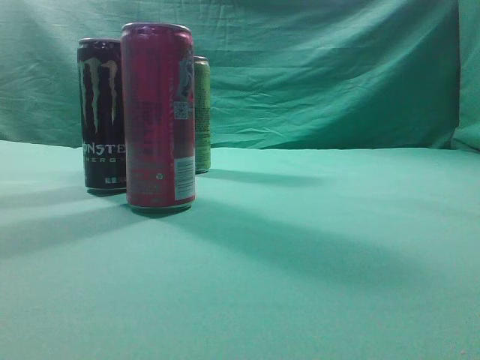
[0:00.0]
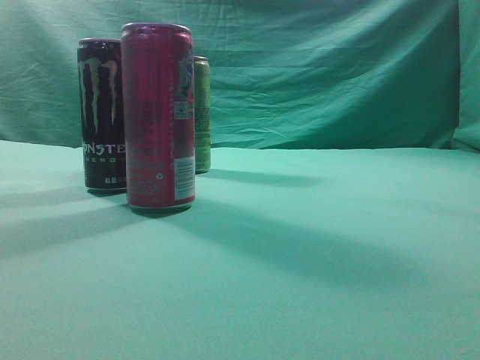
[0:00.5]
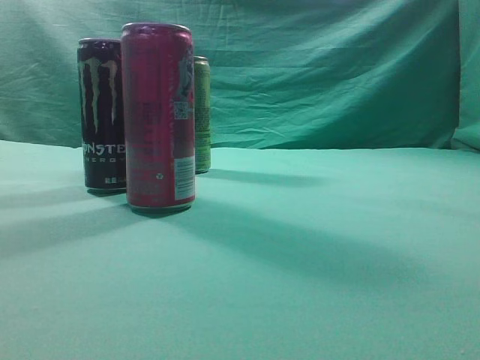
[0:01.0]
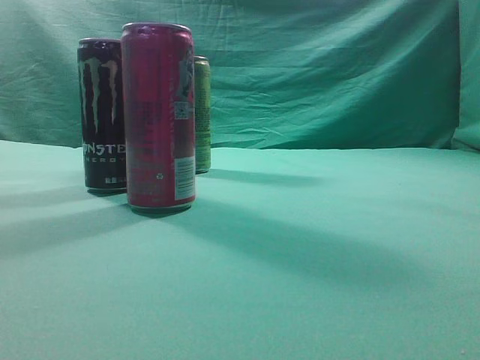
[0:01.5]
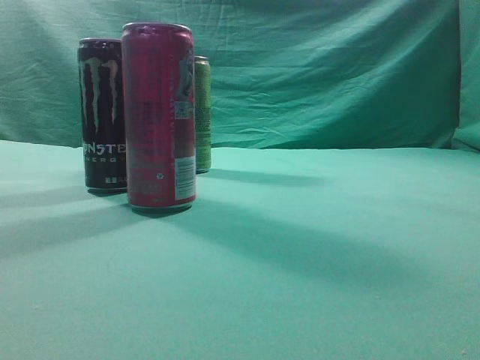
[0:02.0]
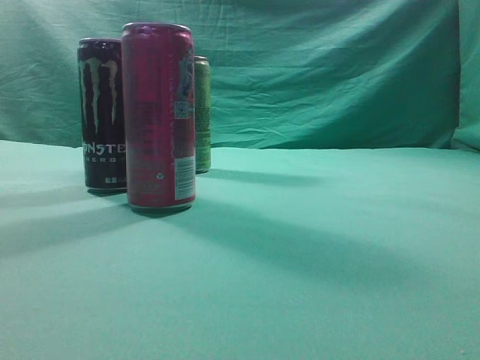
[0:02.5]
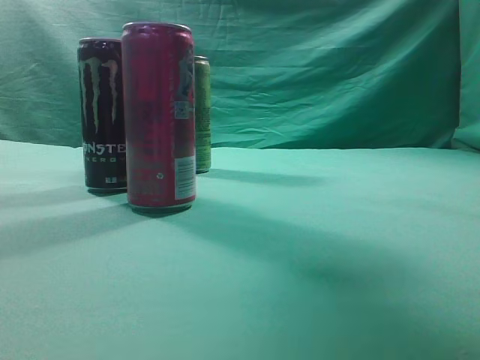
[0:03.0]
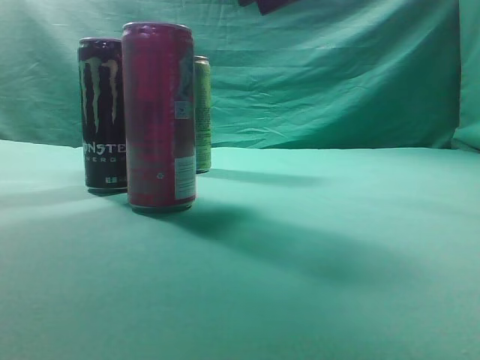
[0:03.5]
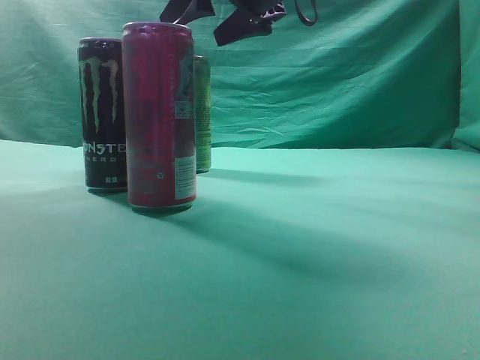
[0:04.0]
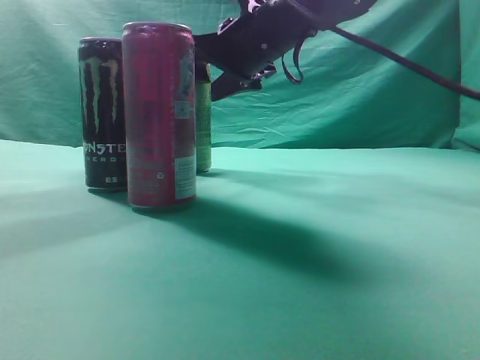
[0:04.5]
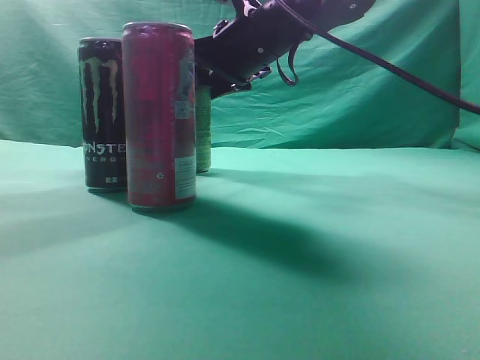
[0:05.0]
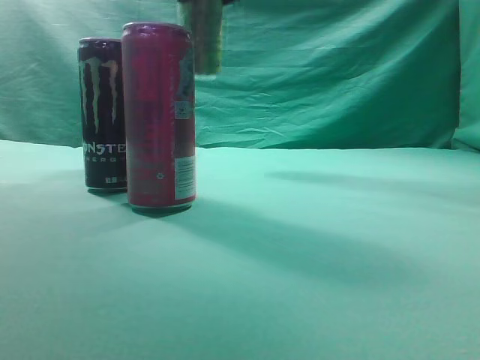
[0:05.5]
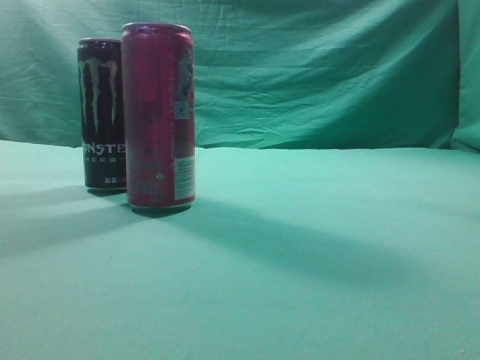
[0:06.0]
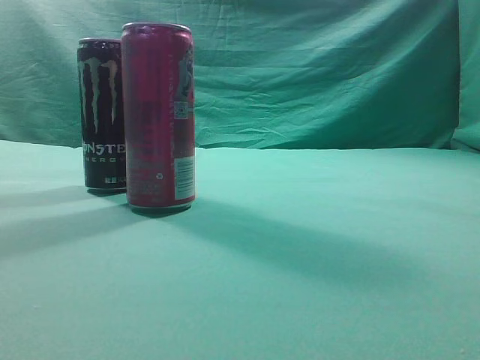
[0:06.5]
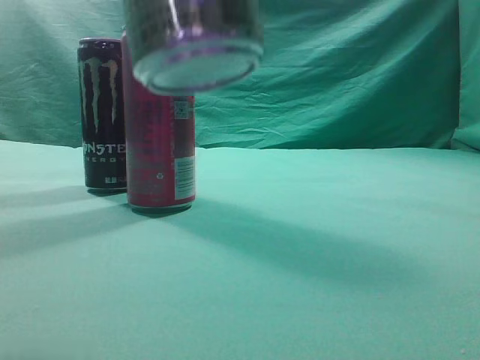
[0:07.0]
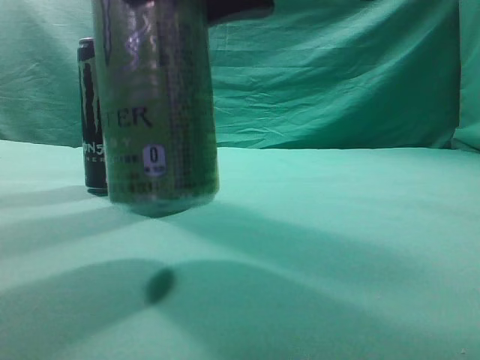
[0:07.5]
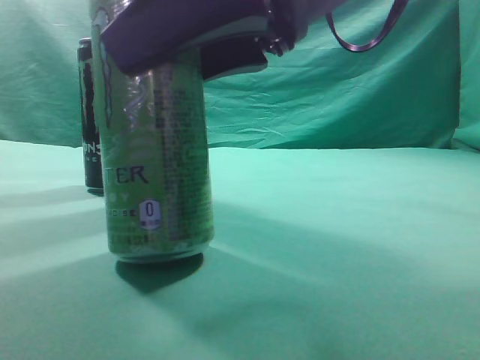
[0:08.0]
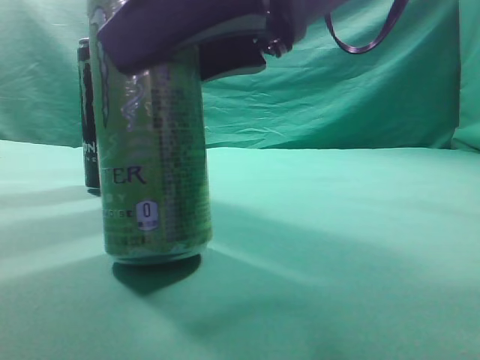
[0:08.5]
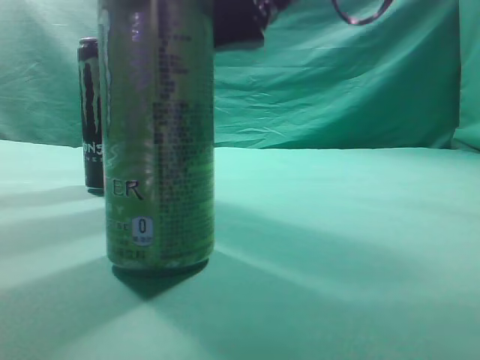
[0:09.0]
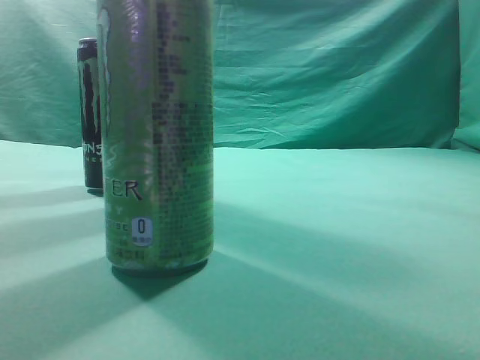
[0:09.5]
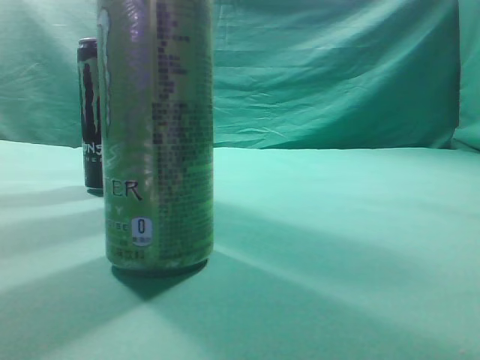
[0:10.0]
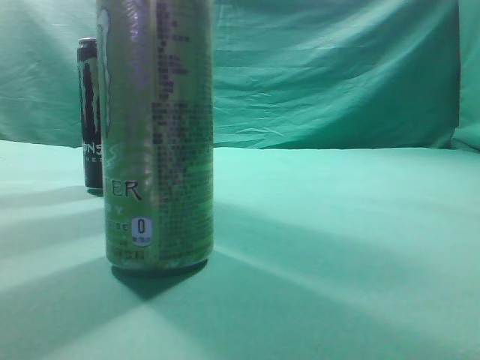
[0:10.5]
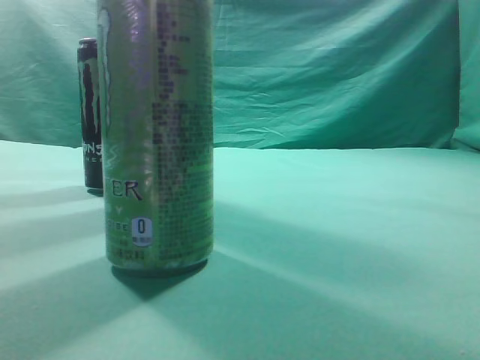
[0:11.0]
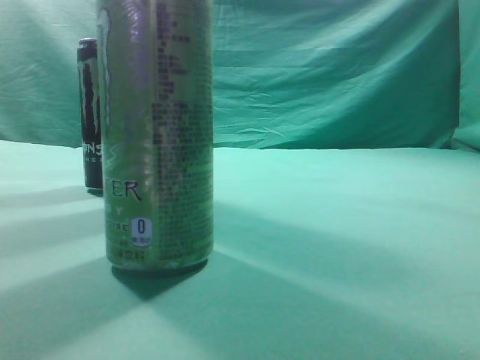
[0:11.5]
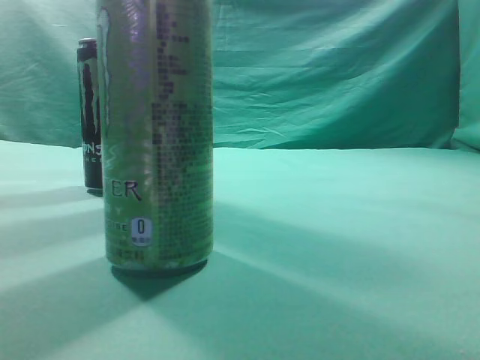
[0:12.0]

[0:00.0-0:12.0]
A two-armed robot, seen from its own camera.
Task of the whole recording: move one drink among three beverages.
Step, 0:00.0 to 0:05.0: Grasp the beverage bottle placed at the back of the desk.
Step, 0:05.5 to 0:08.0: Place the beverage bottle to the front of the table.
0:02.0 to 0:04.0: The right gripper travels forward and to the left by about 40 cm, and opens up.
0:04.0 to 0:06.0: The right gripper is displaced upward and backward by approximately 15 cm.
0:06.0 to 0:08.0: The right gripper goes approximately 20 cm downward and backward.
0:08.0 to 0:10.0: The right gripper travels upward, to the right and backward by approximately 25 cm, and closes.
